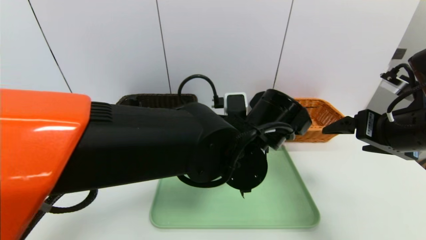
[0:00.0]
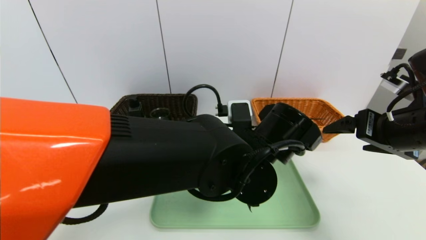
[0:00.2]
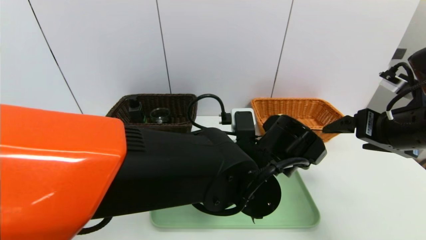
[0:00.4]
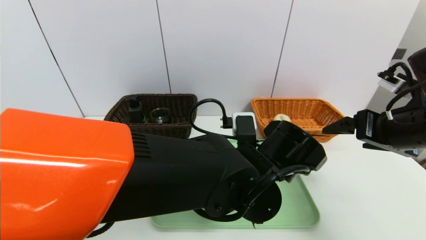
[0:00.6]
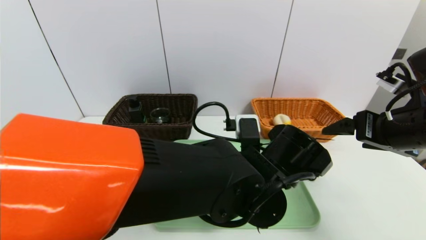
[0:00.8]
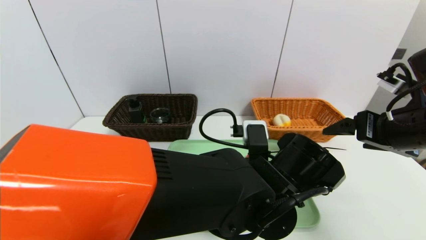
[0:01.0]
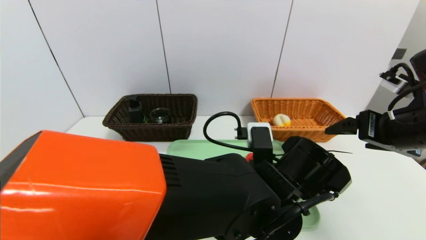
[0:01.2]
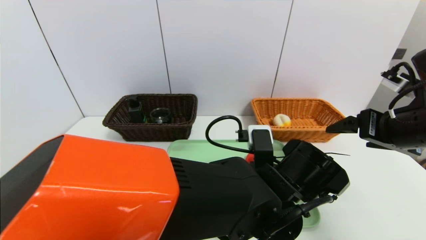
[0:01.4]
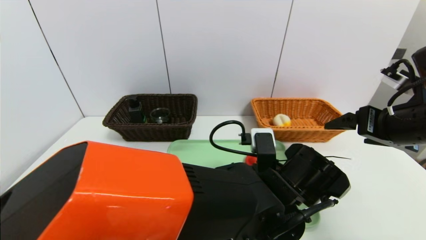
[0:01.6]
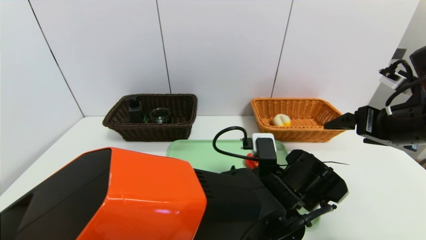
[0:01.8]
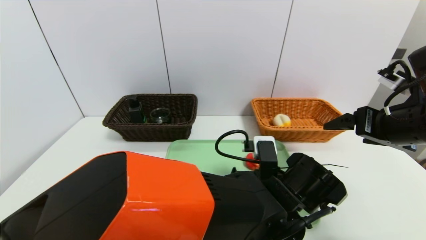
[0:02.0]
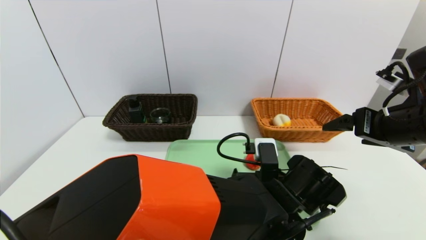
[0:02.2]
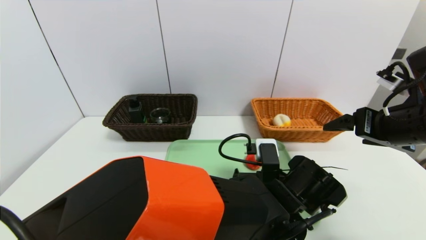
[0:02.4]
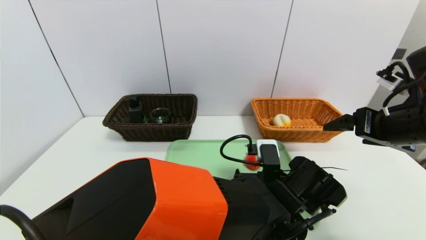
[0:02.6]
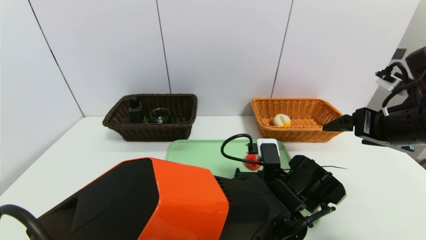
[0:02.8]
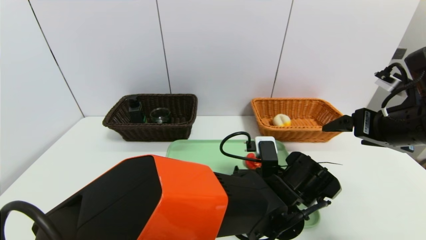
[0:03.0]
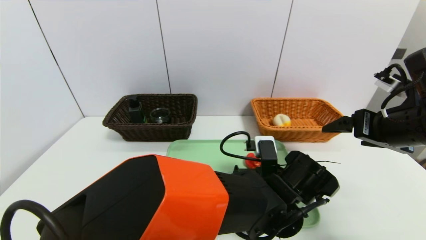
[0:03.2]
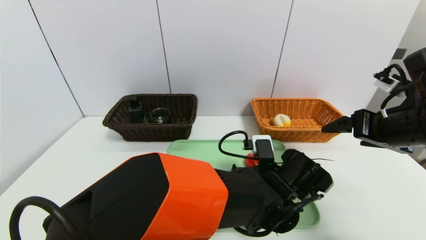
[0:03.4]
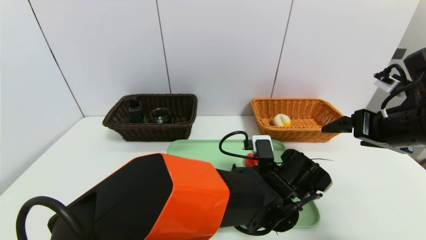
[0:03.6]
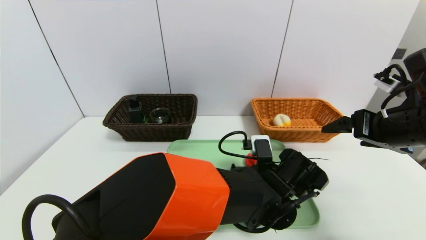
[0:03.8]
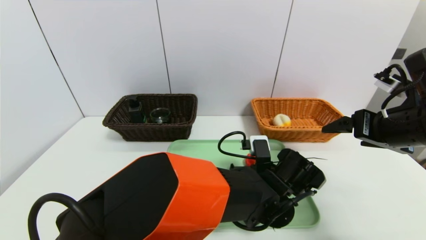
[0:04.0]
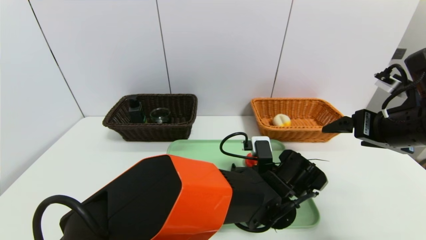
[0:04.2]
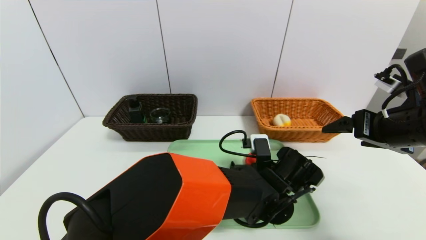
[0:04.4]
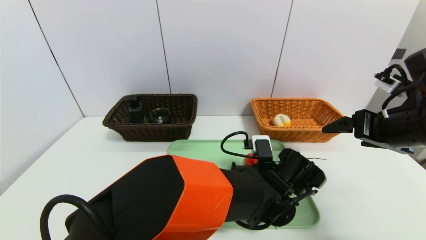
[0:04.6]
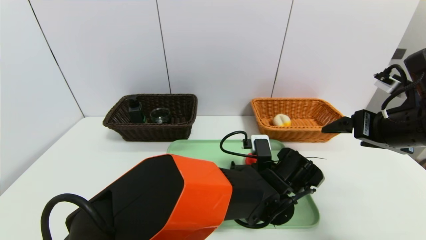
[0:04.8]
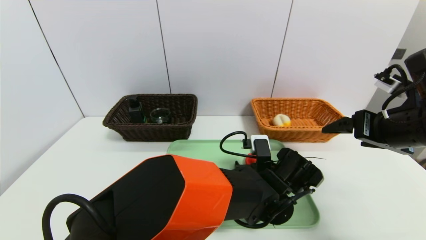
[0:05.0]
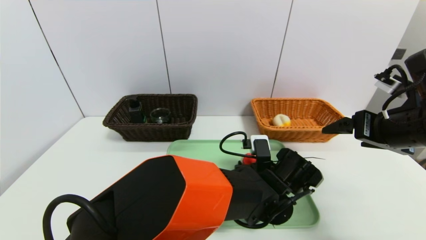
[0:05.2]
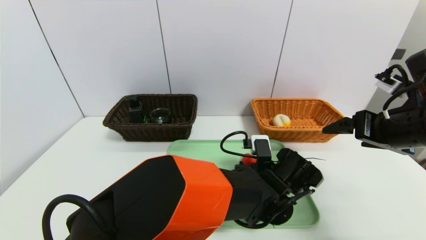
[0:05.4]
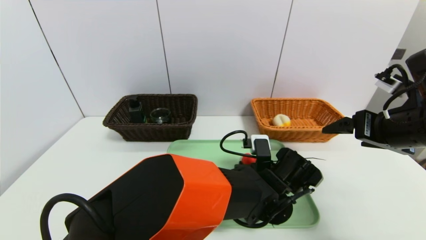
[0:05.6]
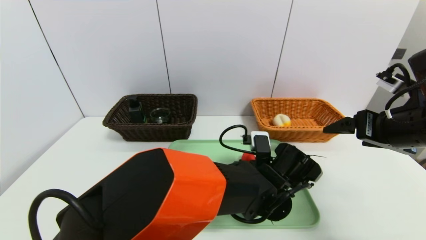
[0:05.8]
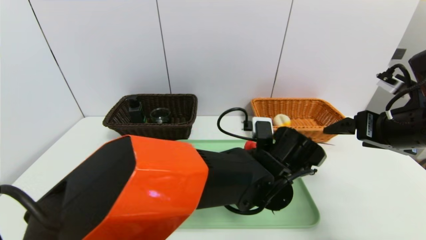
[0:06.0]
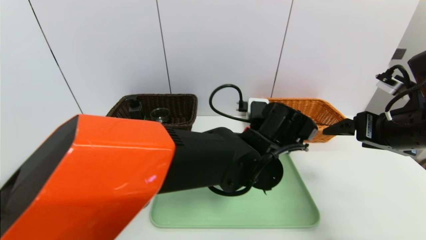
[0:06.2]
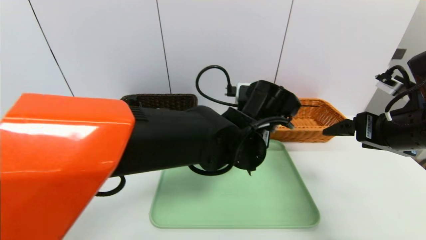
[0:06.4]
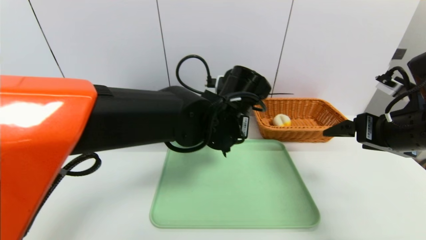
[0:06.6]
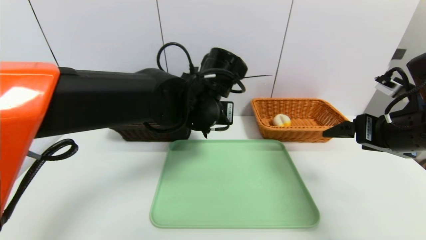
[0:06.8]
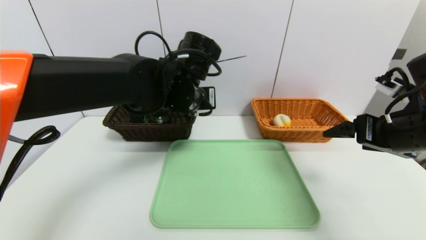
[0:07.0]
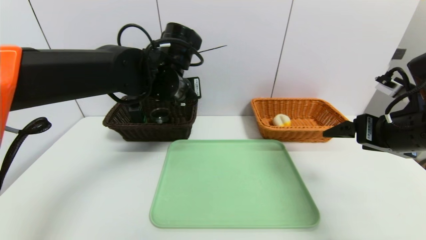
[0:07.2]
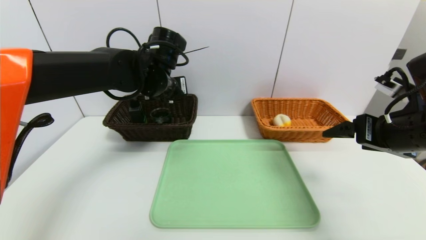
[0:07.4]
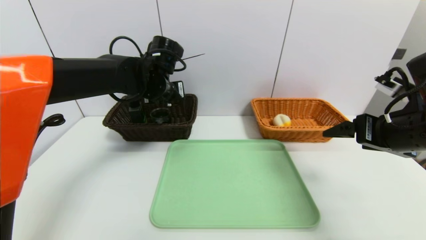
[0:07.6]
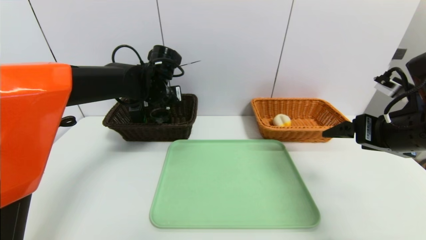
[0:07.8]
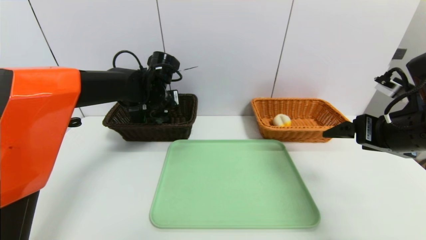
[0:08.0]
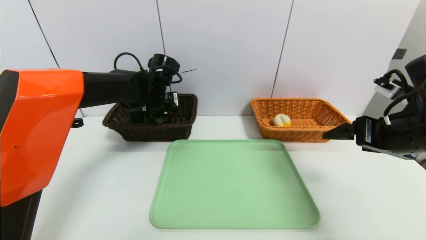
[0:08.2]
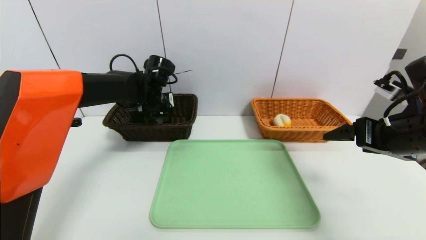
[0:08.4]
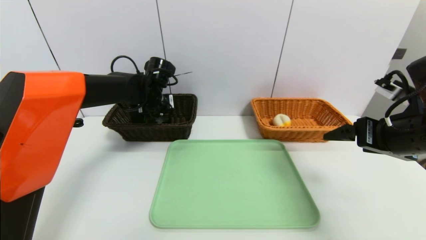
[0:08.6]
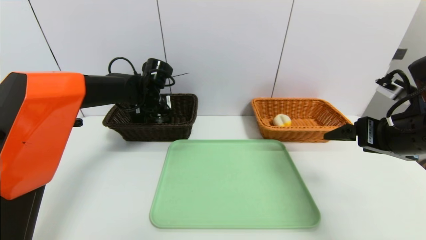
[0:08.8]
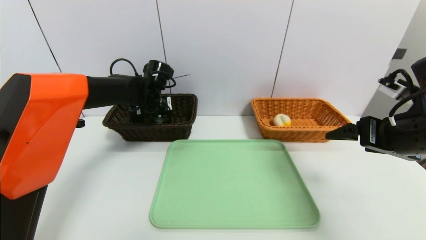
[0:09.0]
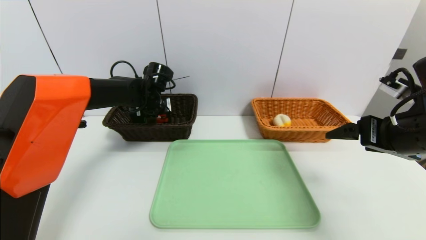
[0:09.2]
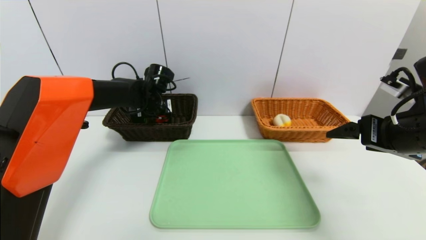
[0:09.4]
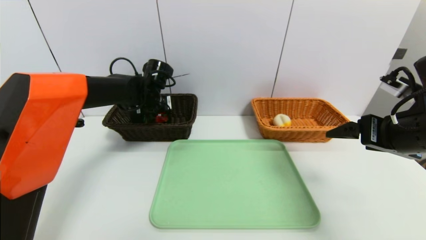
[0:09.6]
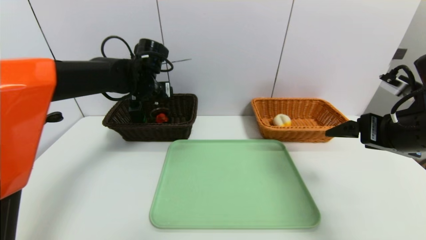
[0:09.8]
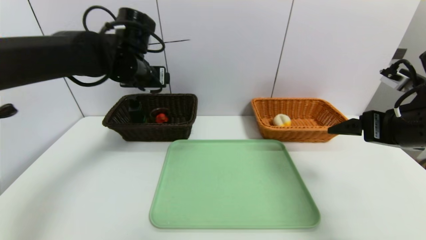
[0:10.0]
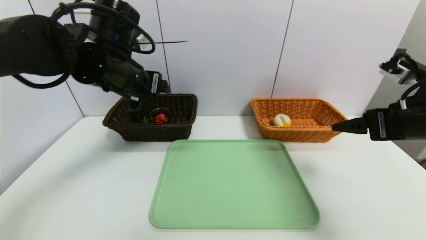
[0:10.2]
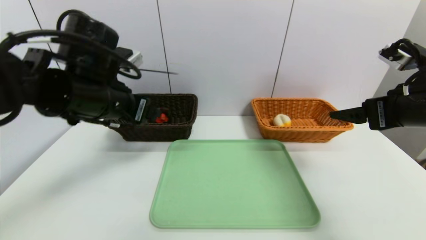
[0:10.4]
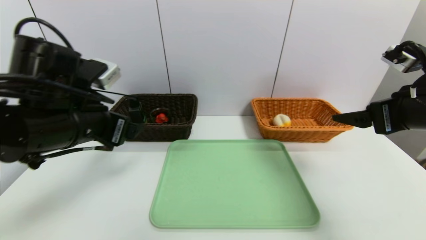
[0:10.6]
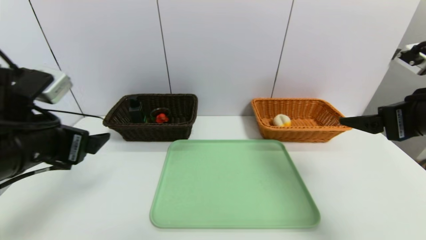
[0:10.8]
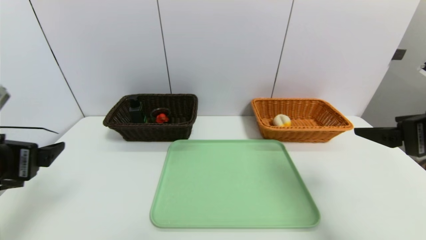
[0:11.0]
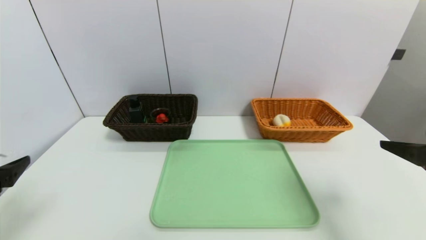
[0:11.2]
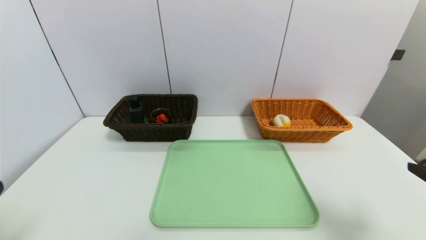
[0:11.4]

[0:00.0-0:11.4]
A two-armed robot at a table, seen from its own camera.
Task of the whole recording: place the food in the right basket with the right gripper, and place the non food items in the left basket with the left gripper.
Step, 0.0 to 9.8 s: Grasp the red duck and put it in the left basket.
0.0 to 1.4 s: The left gripper travels downward by approximately 5 cm.
1.4 to 2.8 s: The left gripper changes place by some 5 cm.
2.8 to 4.2 s: There are only small adjustments of the grippers.
4.2 to 5.6 s: The left gripper closes.
5.6 to 7.2 s: The left gripper moves to the left, upward and forward, approximately 30 cm.
7.2 to 8.6 s: The left gripper goes approximately 15 cm forward, downward and to the left.
8.6 to 10.0 s: The left gripper travels upward and backward by about 10 cm, and opens up.
10.0 to 11.4 s: The left gripper moves backward and to the left, approximately 35 cm; the right gripper heads backward, covering approximately 15 cm.

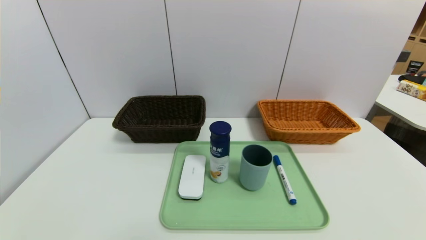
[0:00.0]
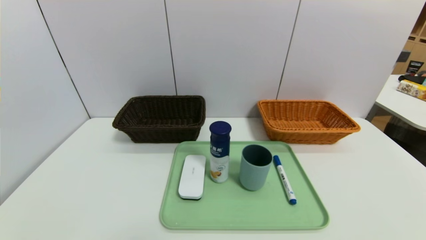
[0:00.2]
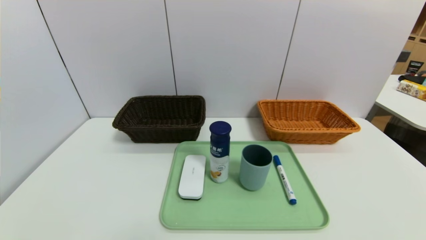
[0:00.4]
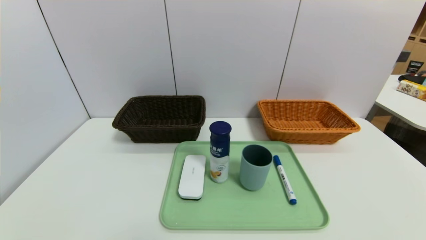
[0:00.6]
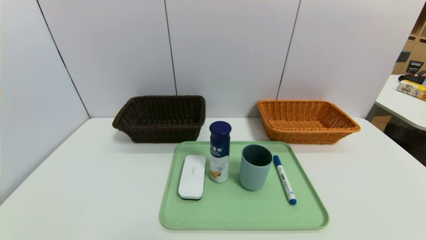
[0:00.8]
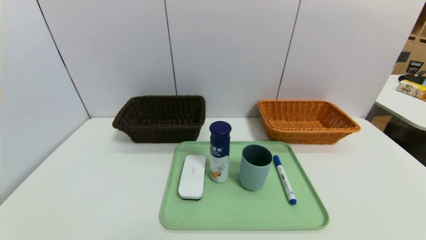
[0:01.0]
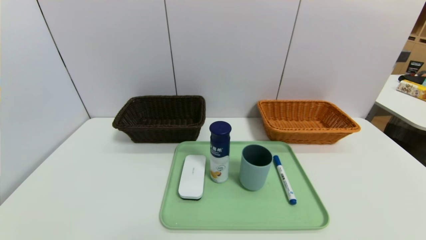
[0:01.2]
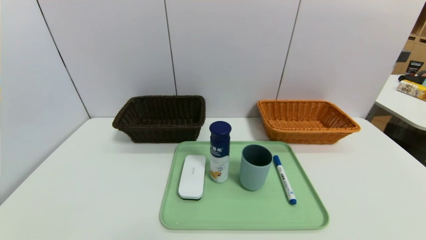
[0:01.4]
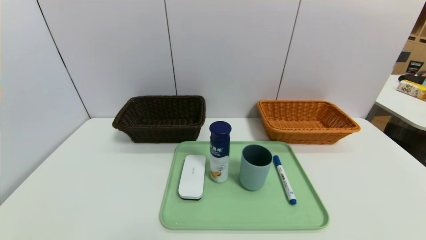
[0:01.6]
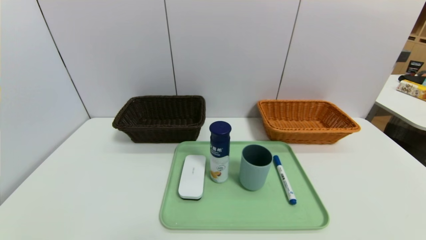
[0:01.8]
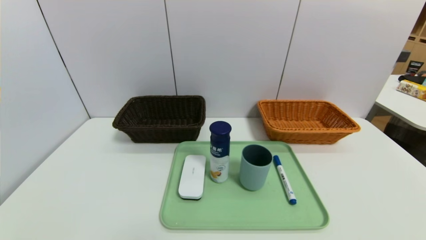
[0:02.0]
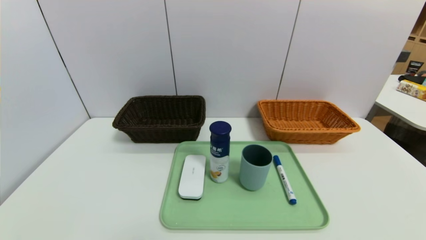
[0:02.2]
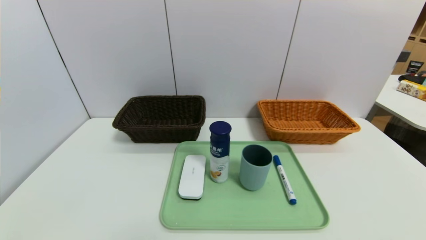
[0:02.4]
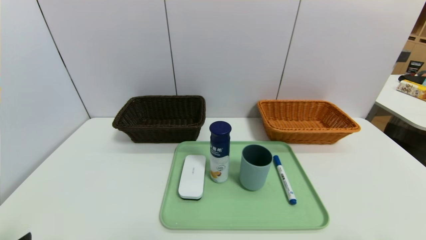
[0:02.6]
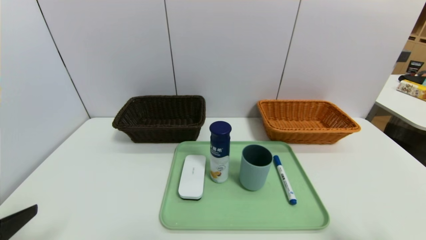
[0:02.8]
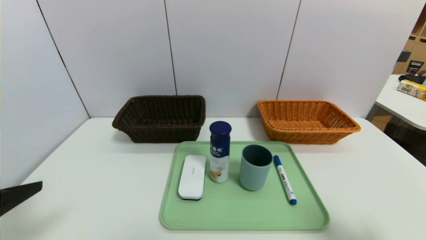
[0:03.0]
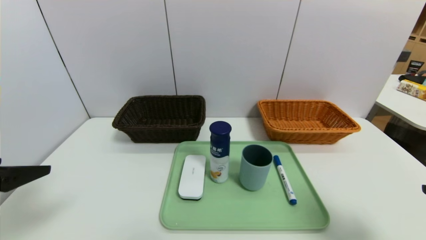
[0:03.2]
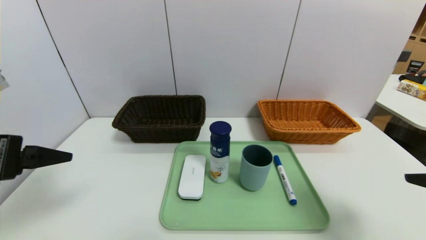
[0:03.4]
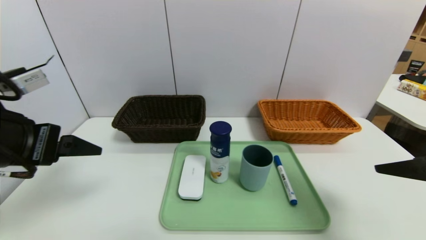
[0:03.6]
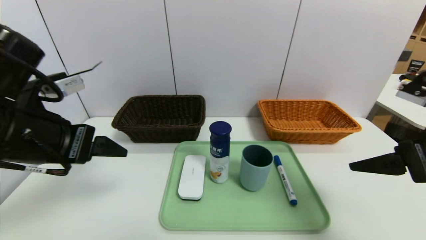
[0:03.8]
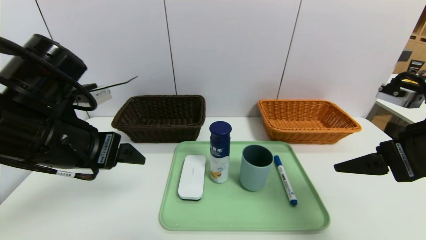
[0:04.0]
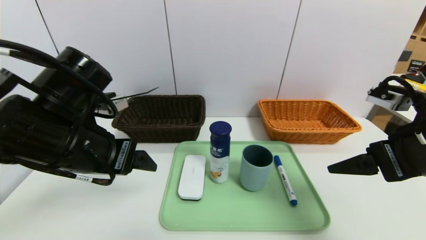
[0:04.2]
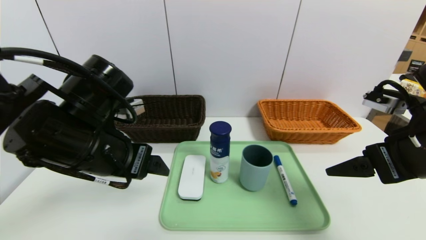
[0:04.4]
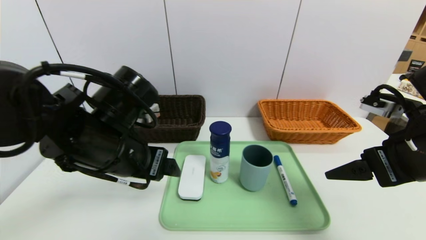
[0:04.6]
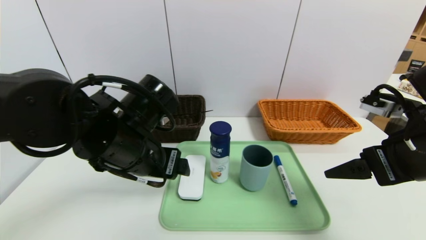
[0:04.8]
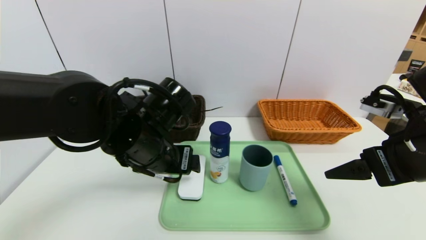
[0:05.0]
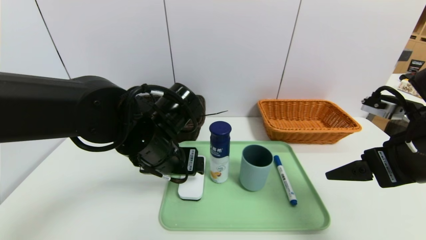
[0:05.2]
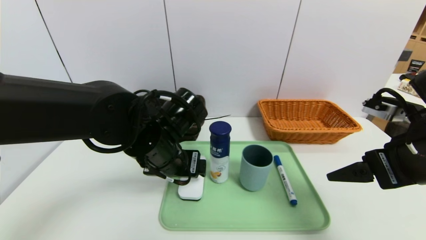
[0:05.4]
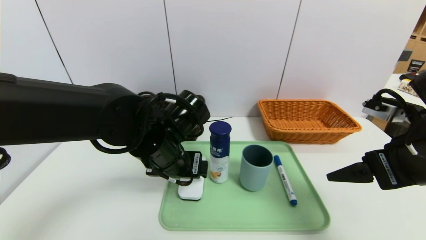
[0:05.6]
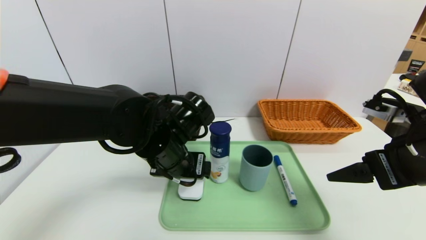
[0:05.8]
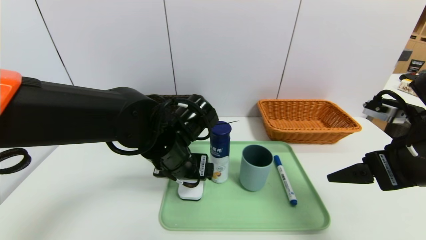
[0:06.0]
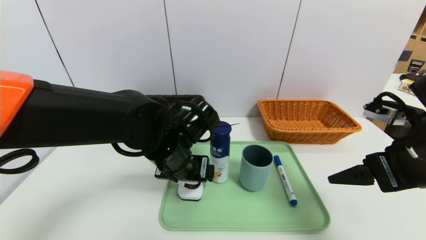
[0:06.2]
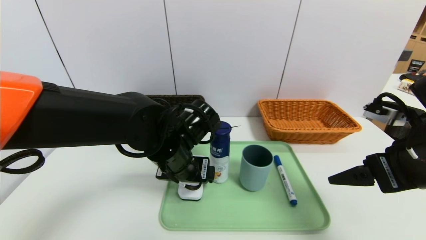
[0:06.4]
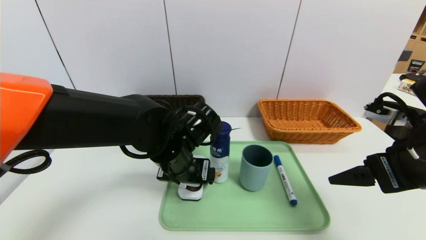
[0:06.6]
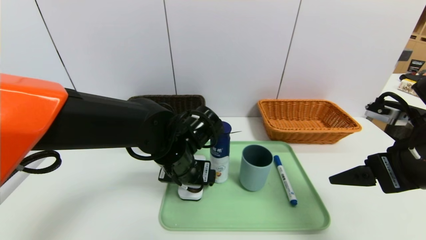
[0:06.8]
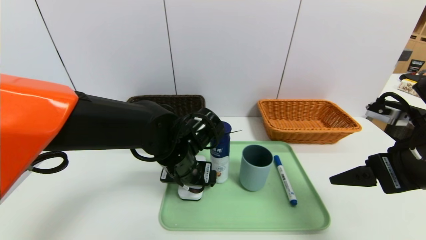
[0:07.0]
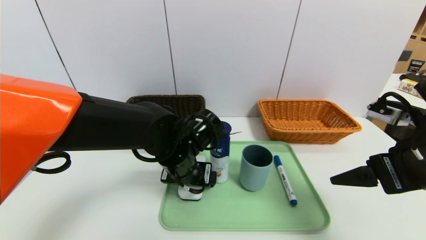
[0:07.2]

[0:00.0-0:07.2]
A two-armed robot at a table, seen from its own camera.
Task of the whole recording: place the food in the right basket with the right gripper, and place the non food items in the left basket with the left gripper.
1.4 to 2.8 s: The left gripper travels upward and forward by some 15 cm.
2.8 to 4.4 s: The right gripper shifts approximately 15 cm forward and to the left. The left gripper is displaced forward and to the right by about 20 cm.
4.4 to 5.8 s: The left gripper moves to the right, downward and forward, about 10 cm.
5.8 to 7.2 s: The grippers make only small movements.
